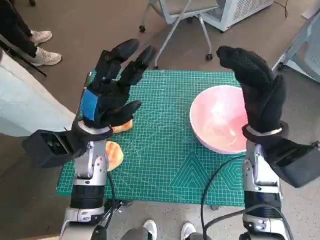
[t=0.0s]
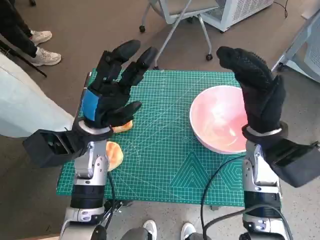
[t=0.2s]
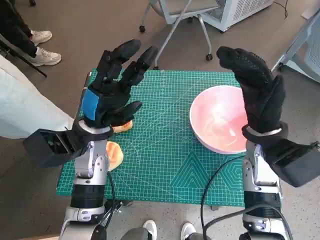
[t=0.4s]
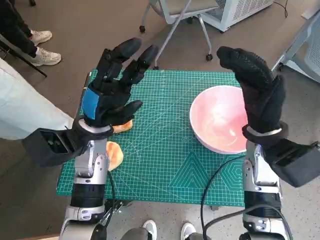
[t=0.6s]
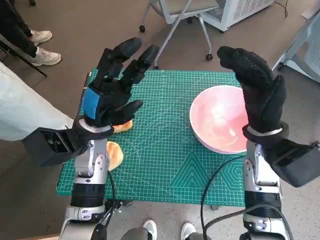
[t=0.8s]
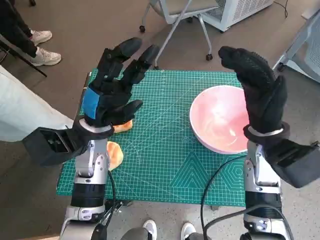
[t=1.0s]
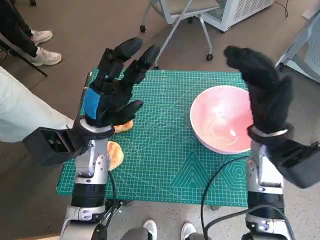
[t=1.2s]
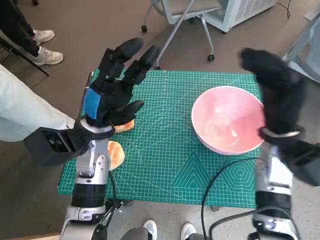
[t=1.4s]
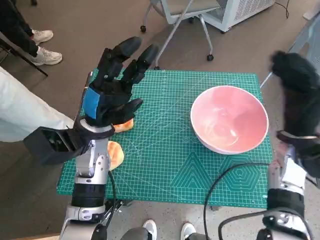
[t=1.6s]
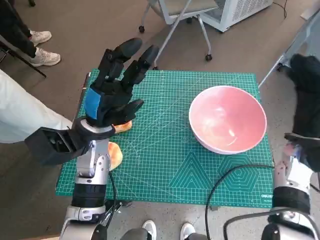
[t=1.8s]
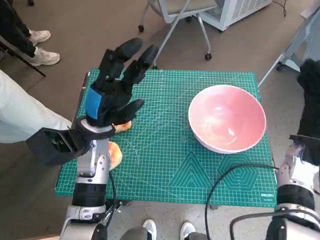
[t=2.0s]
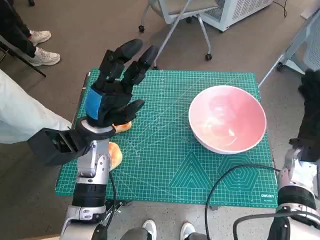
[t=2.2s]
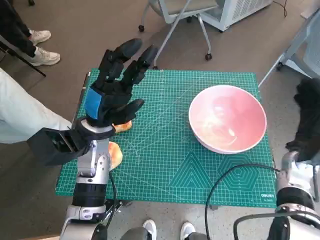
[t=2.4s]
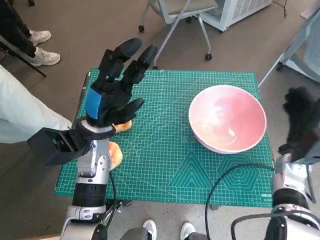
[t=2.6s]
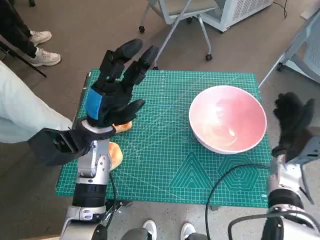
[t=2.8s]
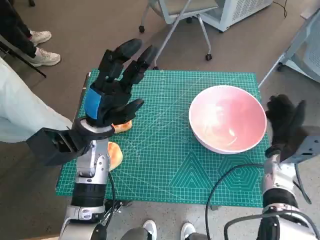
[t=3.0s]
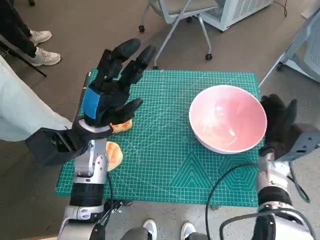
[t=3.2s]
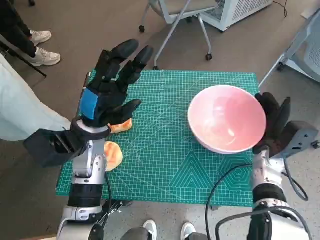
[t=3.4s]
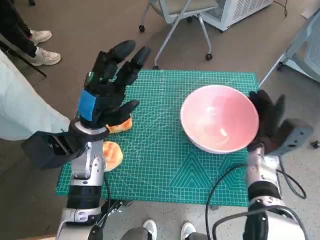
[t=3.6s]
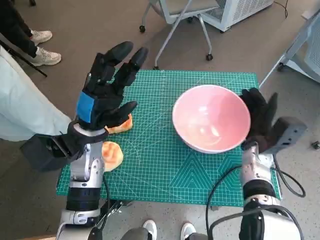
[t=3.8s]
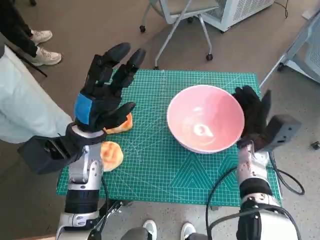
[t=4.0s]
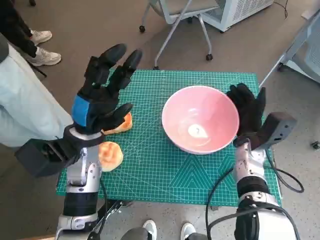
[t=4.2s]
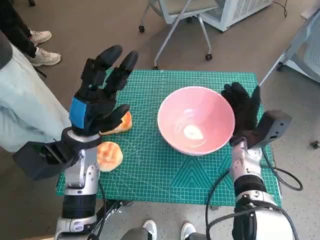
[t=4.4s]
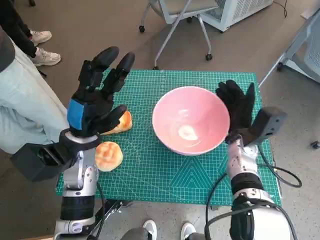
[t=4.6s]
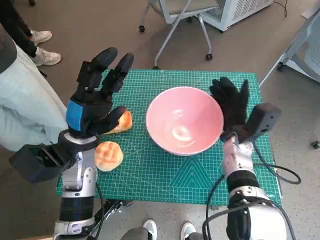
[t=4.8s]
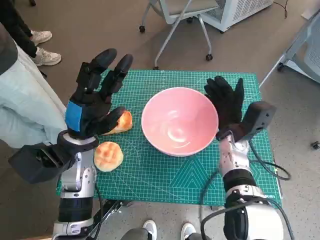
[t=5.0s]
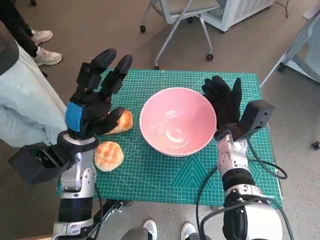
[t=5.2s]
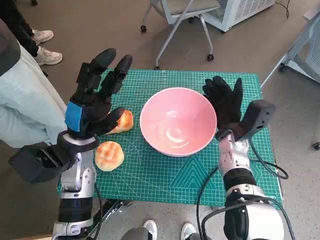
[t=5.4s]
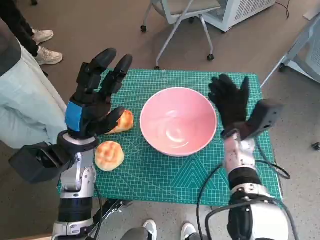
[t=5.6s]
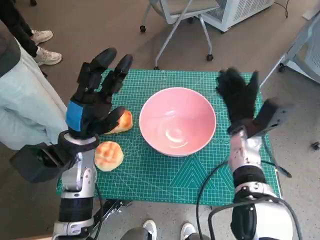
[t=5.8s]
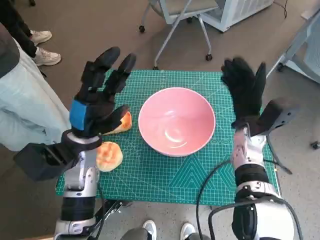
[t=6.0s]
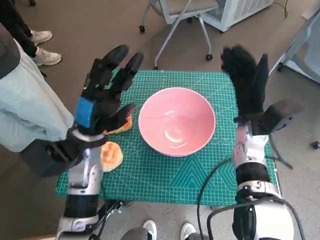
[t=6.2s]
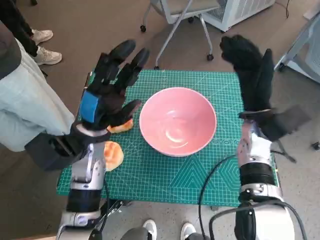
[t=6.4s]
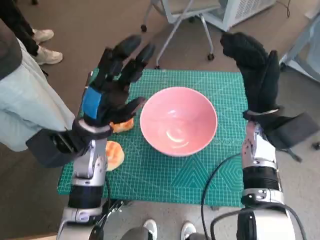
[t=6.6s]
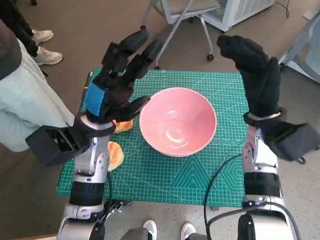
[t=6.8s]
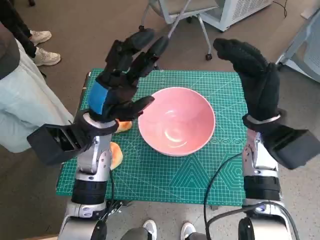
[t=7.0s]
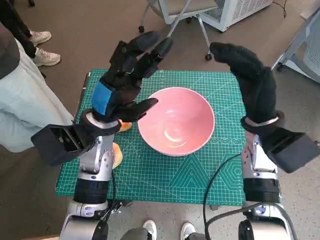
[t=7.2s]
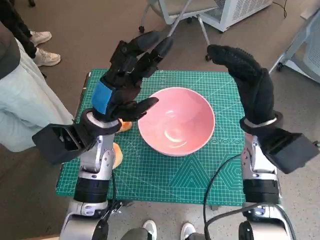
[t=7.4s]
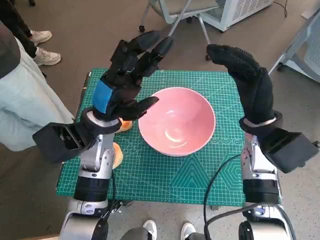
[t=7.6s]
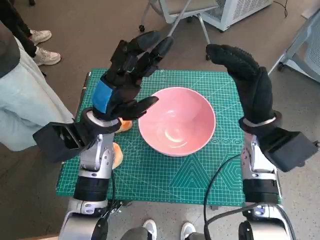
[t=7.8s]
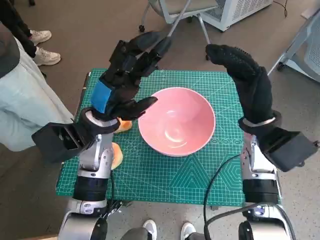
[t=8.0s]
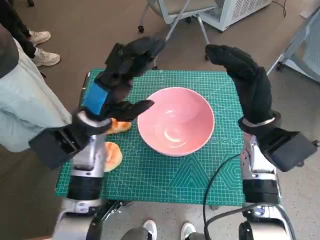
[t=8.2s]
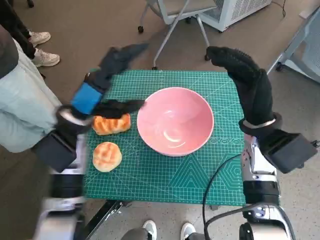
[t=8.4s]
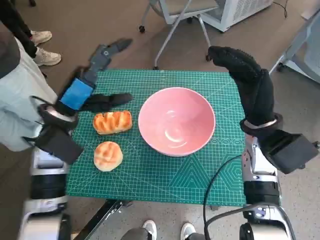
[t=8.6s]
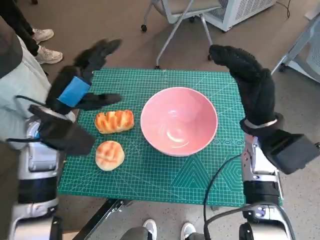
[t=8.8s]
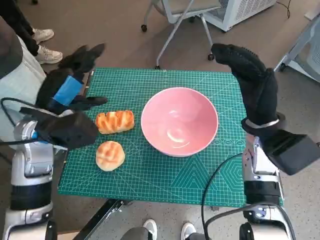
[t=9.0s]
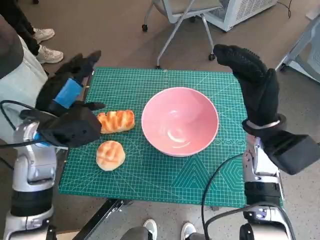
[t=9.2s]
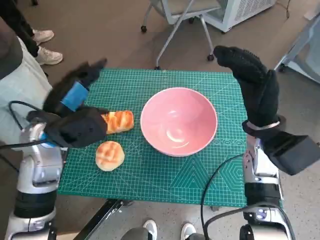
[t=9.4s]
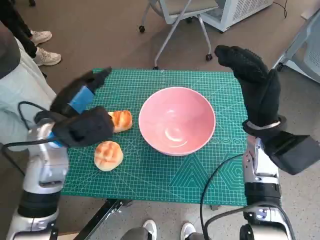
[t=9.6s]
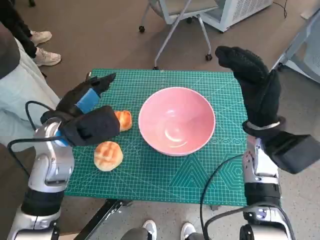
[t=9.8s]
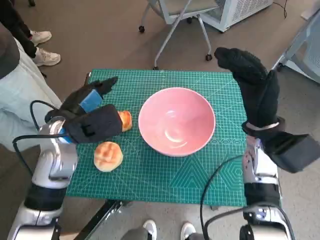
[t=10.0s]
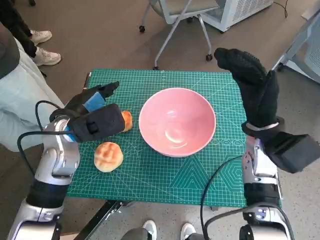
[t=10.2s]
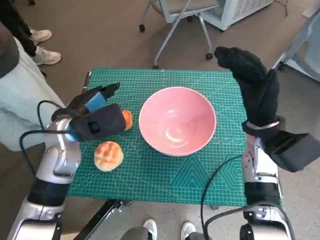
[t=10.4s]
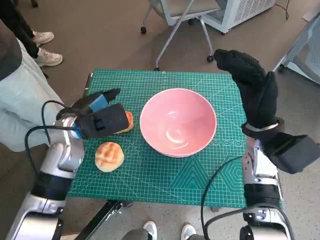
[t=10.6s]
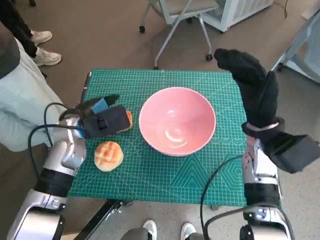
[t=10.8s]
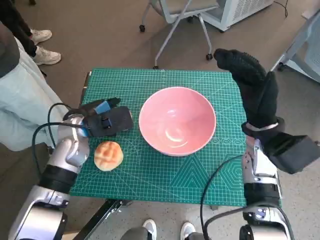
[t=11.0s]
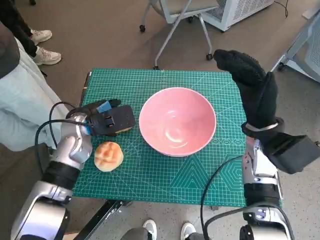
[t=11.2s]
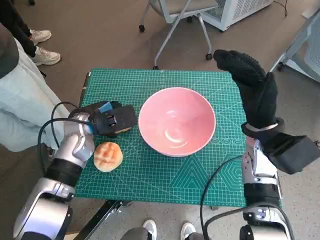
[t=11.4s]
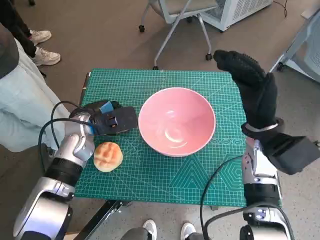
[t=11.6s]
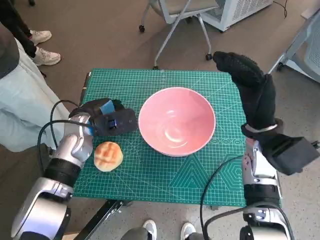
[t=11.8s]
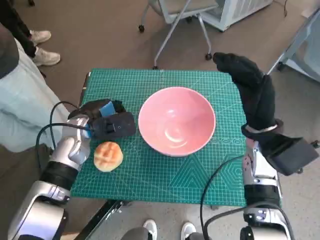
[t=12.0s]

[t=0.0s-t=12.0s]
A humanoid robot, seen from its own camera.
Task of the whole recording: Push the bowl into the center of the table and put the bread into the bowl.
Step, t=0.0s to t=5.8s: Move the pink bowl to the center of table with right hand.
Step, t=6.2s to t=12.0s: Grasp the long bread with left hand.
t=1.6s to t=3.0s: The right hand moves downward, roughly 10 cm.
t=3.0s to t=4.4s: The right hand shifts about 10 cm to the left.
t=4.4s to t=6.0s: The hands stay close to where they were, moving slightly.
t=6.0s to t=7.6s: The left hand moves about 5 cm. The right hand moves upward, approximately 5 cm.
t=7.6s to t=9.0s: The left hand heads to the left, covering approximately 10 cm.
t=10.4s to t=12.0s: The left hand ends up some 5 cm from where it was.

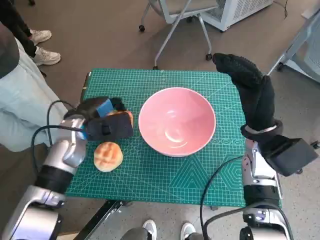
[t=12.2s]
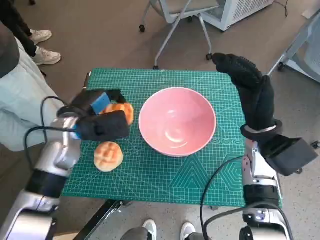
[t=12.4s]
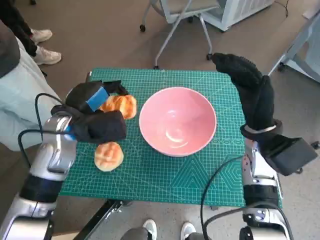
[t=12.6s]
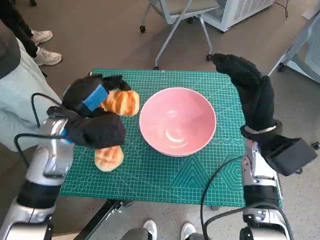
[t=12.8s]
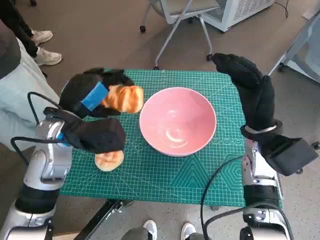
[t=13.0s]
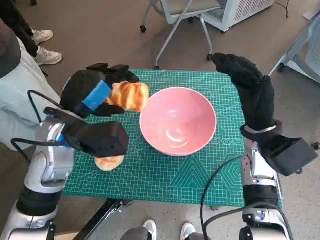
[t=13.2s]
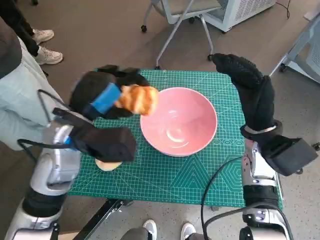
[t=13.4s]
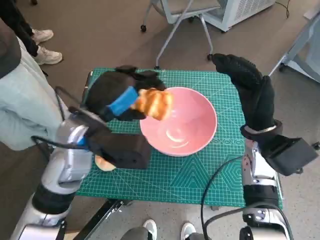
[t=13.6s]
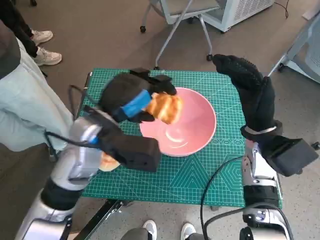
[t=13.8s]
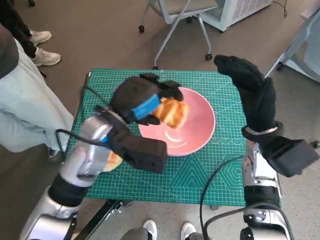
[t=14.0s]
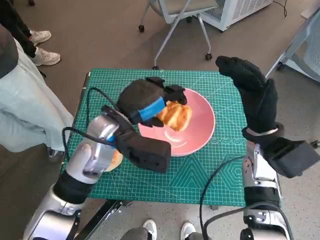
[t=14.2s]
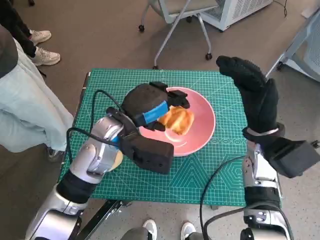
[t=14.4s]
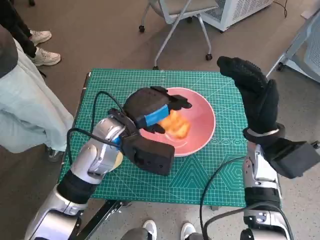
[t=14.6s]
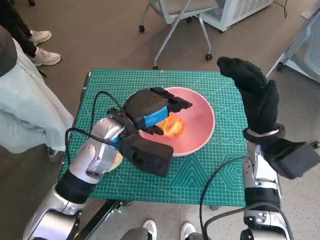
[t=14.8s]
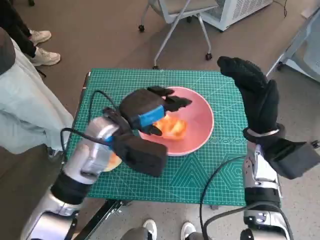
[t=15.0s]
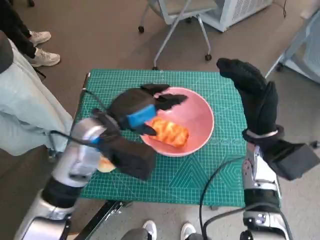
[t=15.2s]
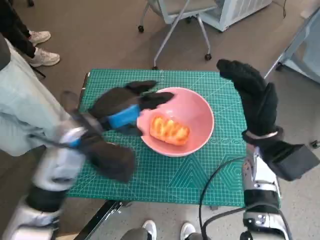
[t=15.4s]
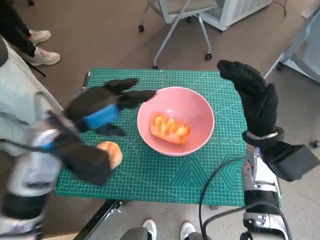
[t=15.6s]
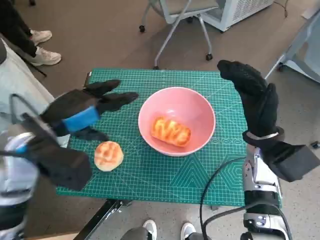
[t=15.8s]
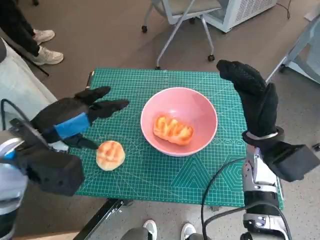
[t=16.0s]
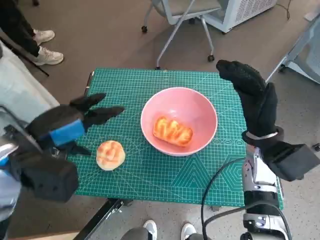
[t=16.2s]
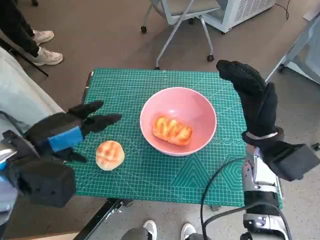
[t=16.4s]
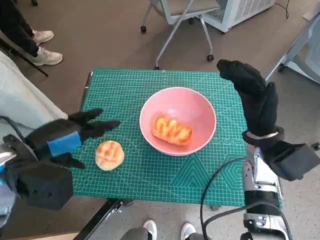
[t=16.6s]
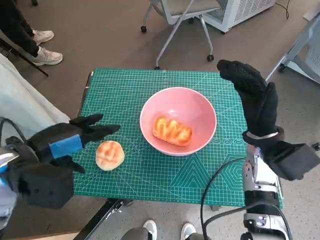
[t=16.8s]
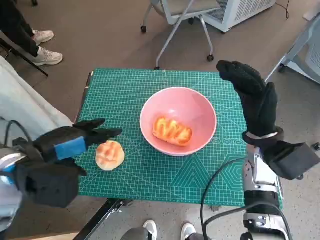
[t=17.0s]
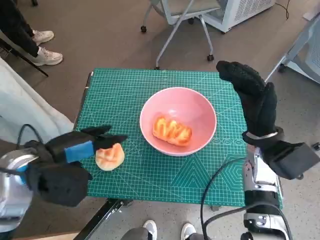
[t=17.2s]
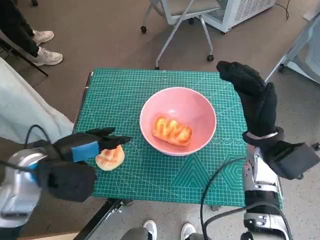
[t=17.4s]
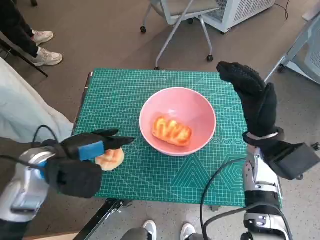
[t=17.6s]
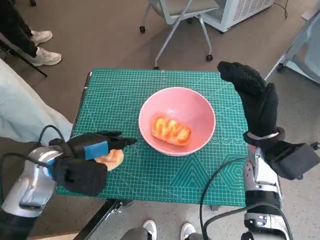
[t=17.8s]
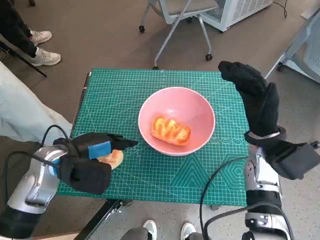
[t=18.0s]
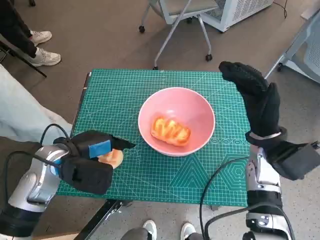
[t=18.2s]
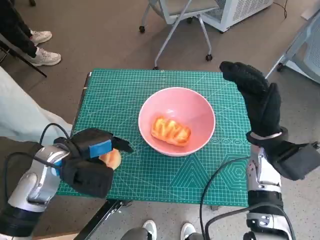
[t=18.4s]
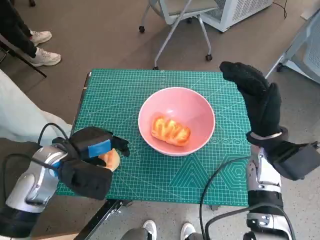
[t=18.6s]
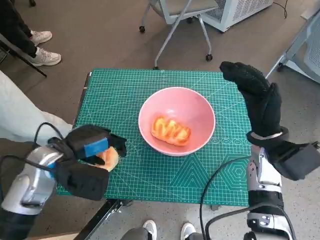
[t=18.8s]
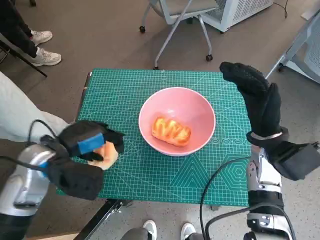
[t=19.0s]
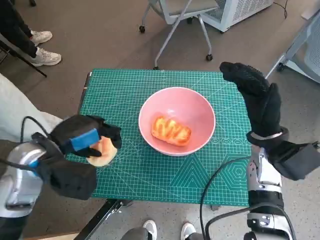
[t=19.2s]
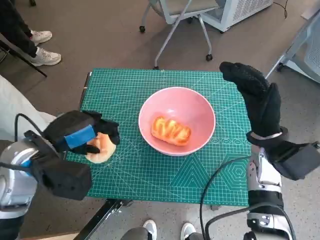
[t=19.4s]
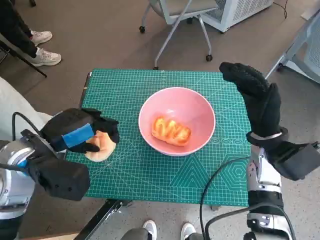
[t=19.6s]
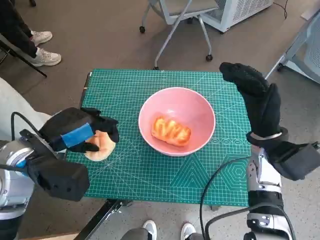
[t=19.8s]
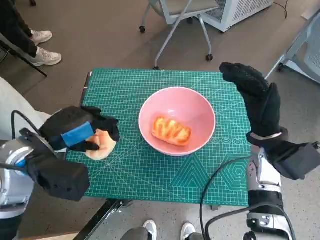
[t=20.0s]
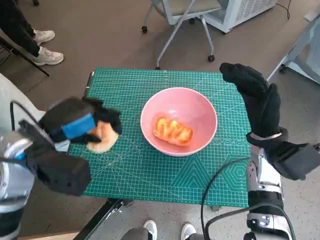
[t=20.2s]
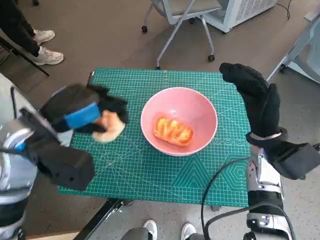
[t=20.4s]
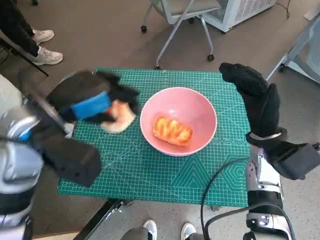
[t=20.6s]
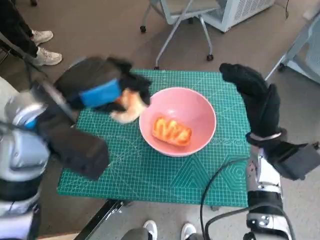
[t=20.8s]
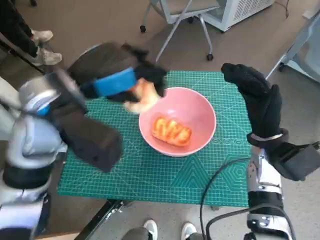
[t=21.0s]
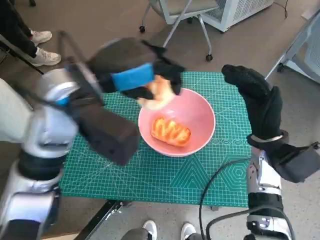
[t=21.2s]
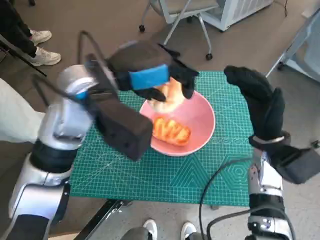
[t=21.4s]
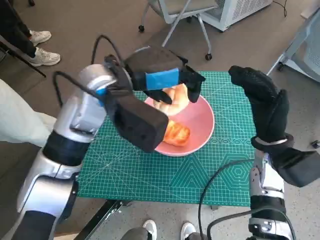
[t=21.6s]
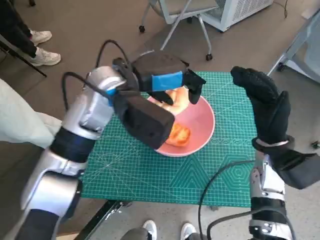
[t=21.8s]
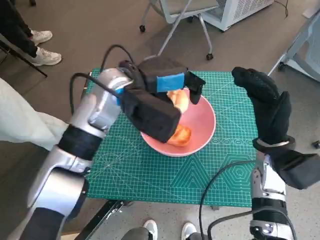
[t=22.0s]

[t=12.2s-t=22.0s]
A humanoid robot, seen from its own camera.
Task of the whole recording: Push the bowl into the center of the table and put the bread into the bowl.
Step, t=12.2s to t=15.6s: Place the long bread in pink bowl with left hand.
Step, t=15.8s to t=18.8s: Grasp the round bread with left hand.
t=12.2s to t=13.6s: The left hand travels upward, backward and to the right by roughly 10 cm.
t=13.6s to t=15.0s: The left hand moves approximately 5 cm.
t=15.0s to t=16.4s: The left hand goes approximately 15 cm to the left and backward.
t=16.4s to t=17.8s: The left hand is displaced downward by about 5 cm.
t=17.8s to t=19.2s: There are only small adjustments of the hands.
t=19.2s to t=20.6s: The left hand moves upward, approximately 10 cm.
t=20.6s to t=22.0s: The left hand shifts roughly 15 cm to the right and forward.
